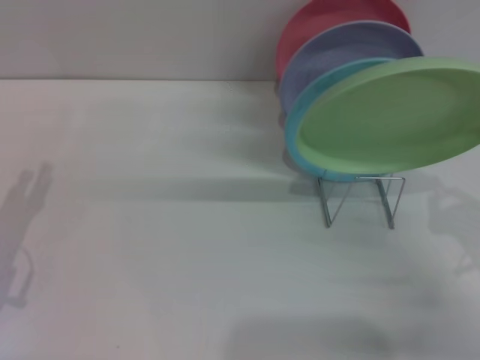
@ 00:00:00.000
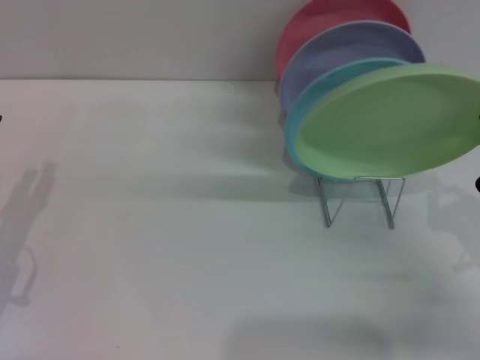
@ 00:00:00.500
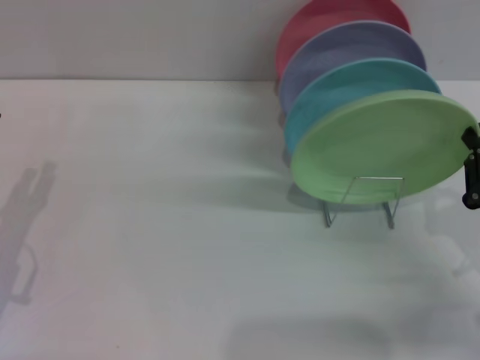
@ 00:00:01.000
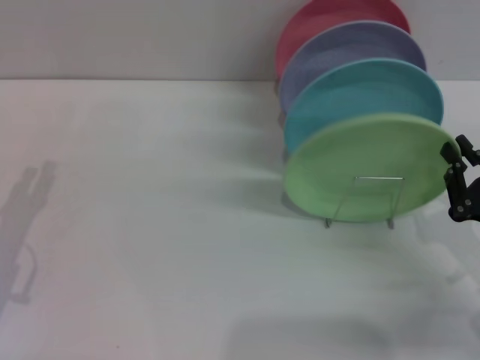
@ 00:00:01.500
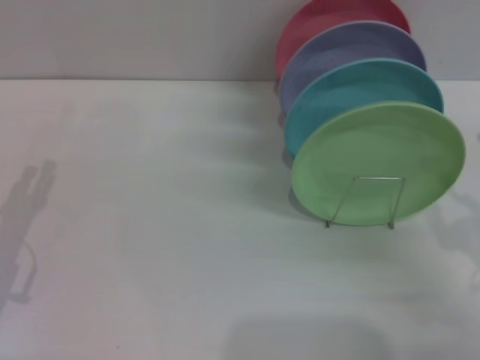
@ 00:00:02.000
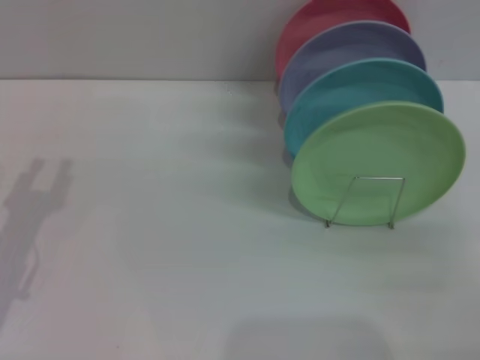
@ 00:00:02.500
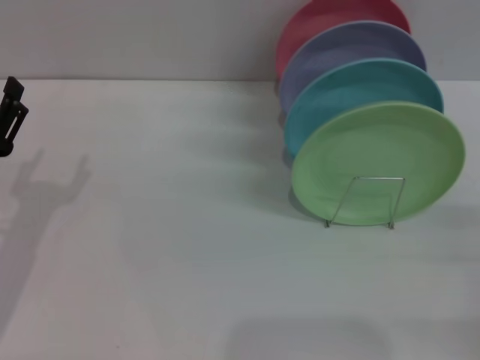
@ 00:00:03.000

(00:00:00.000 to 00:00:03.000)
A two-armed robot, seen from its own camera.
Task of the whole recording: Grip the plate with one hand, pass it to the other, then set it on the shelf.
00:00:00.000 - 00:00:01.500: The grippers stay close to where they were, moving slightly.
00:00:01.500 - 00:00:03.000: The right gripper shifts some 5 cm to the right, and opens its fingers.
